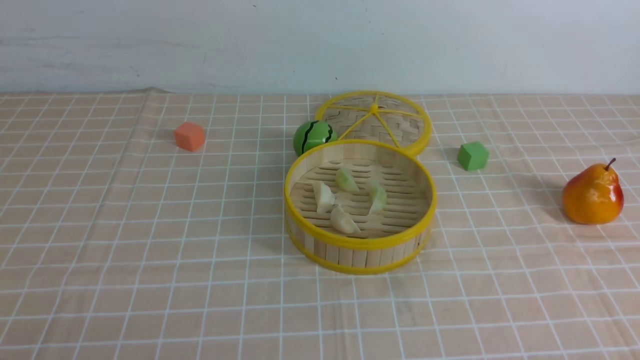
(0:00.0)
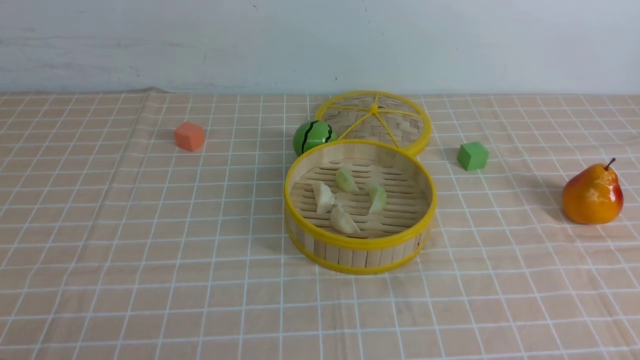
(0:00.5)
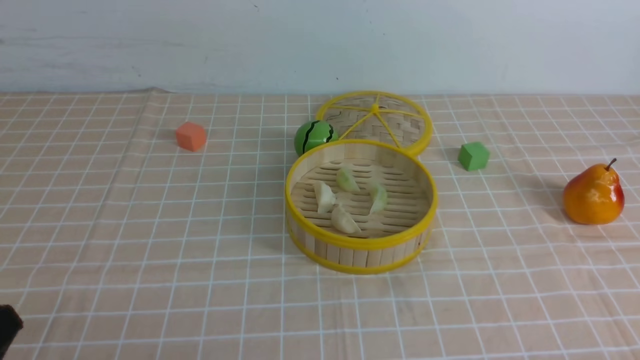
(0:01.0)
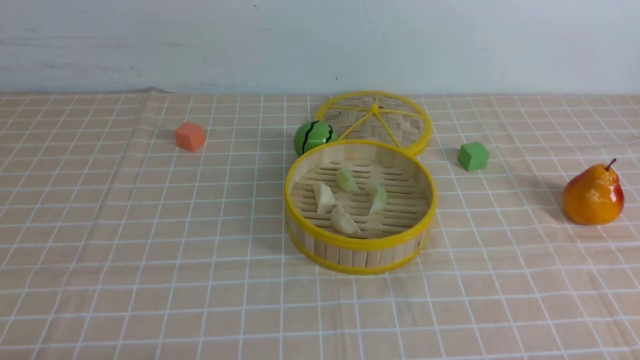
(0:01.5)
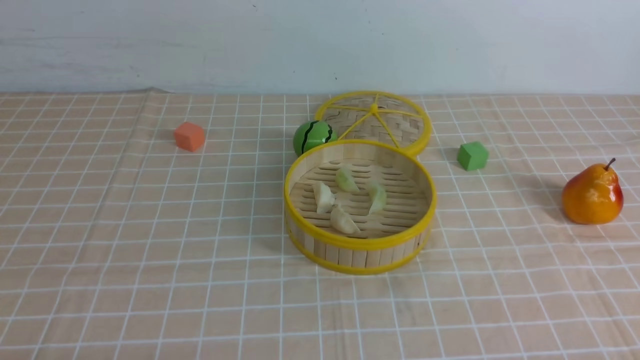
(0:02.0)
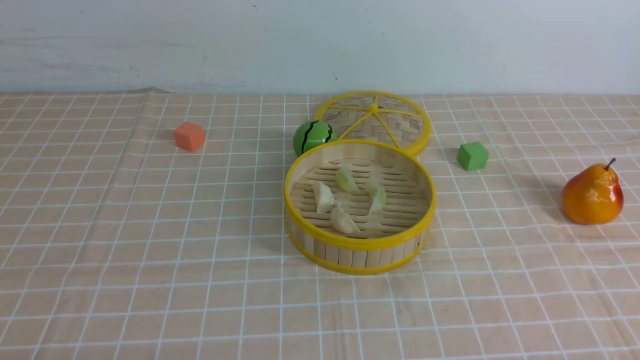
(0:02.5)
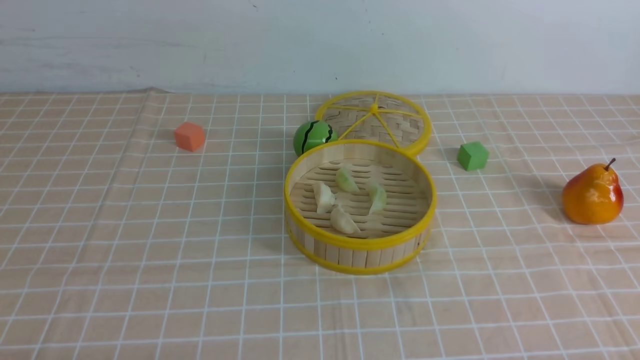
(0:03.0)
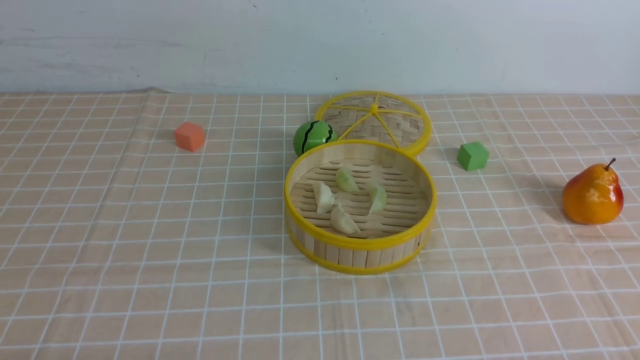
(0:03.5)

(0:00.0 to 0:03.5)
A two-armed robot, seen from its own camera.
Task of the whole recording: put the dumplings into the steamer on the table with the brown tablecloth.
0:02.0 - 0:03.5: Both grippers stay about where they are.
